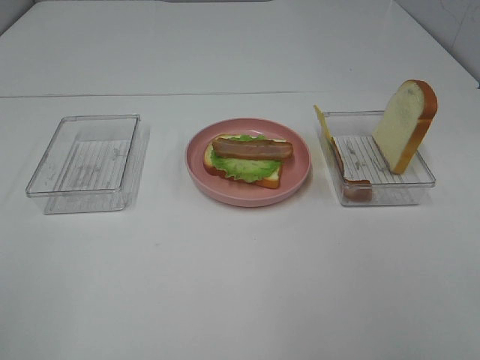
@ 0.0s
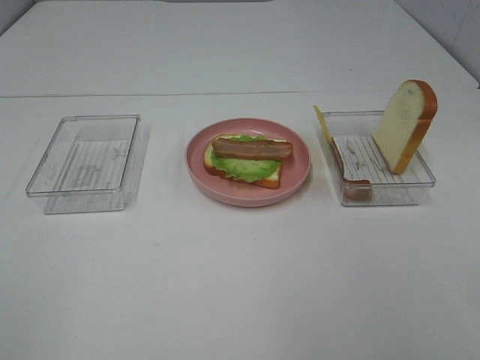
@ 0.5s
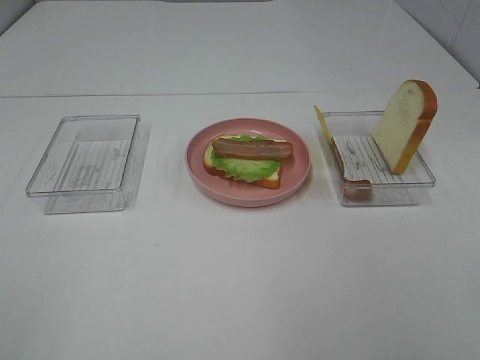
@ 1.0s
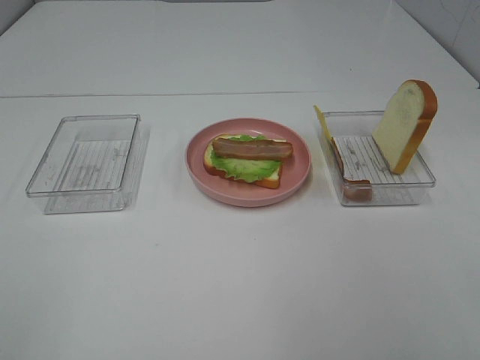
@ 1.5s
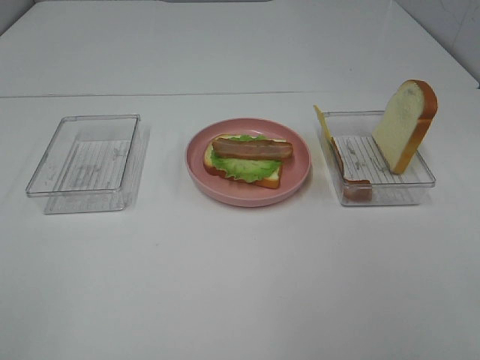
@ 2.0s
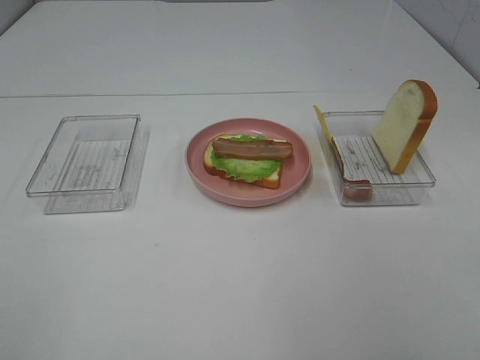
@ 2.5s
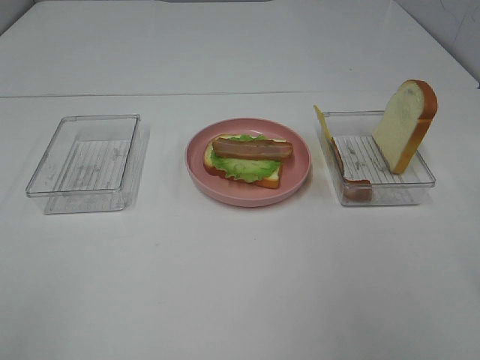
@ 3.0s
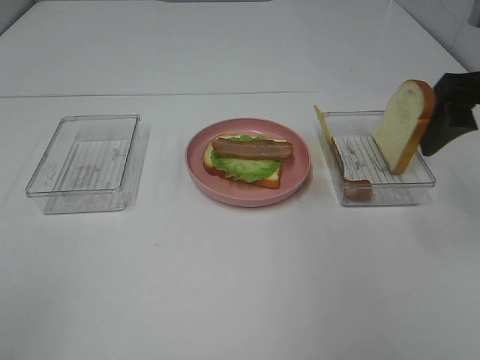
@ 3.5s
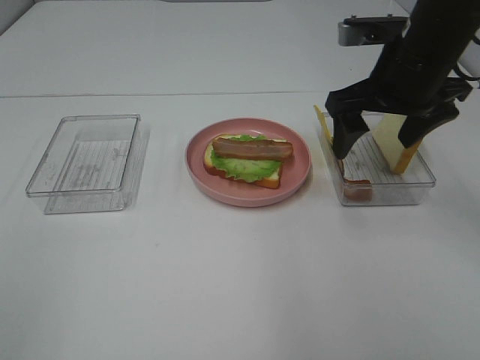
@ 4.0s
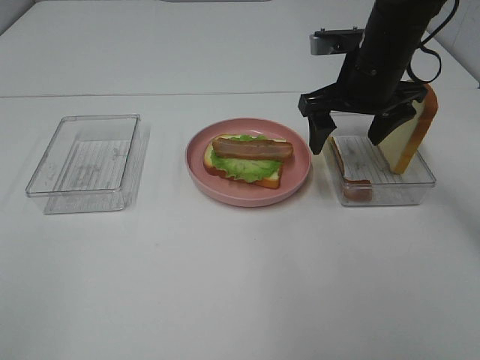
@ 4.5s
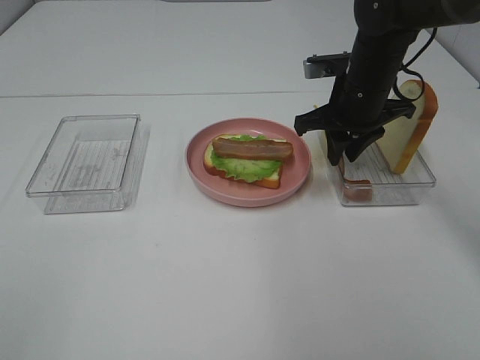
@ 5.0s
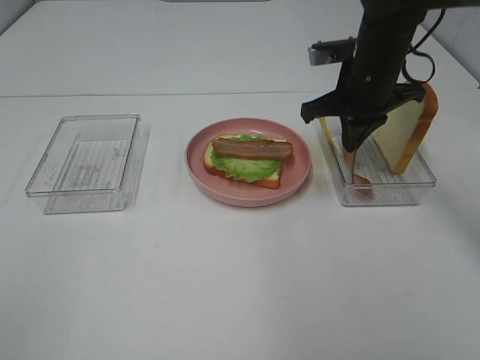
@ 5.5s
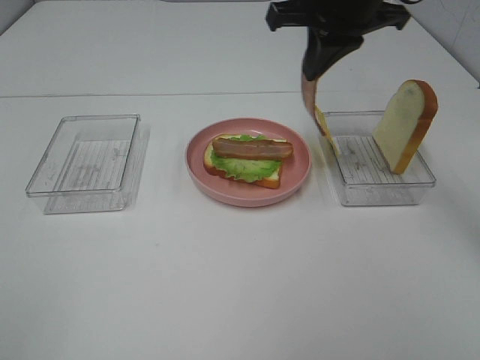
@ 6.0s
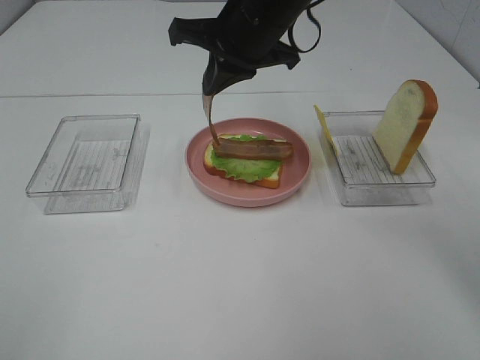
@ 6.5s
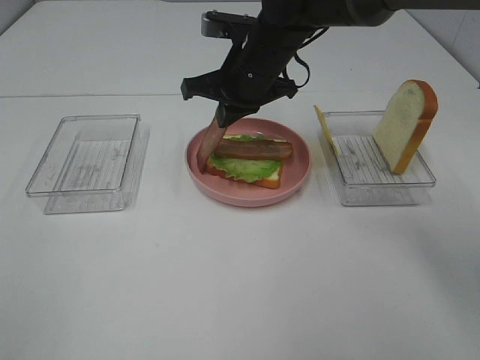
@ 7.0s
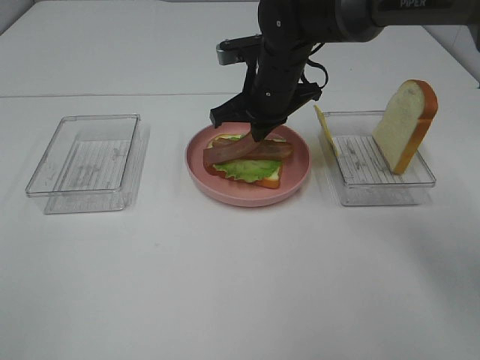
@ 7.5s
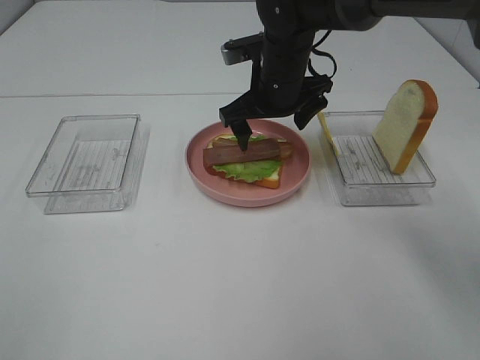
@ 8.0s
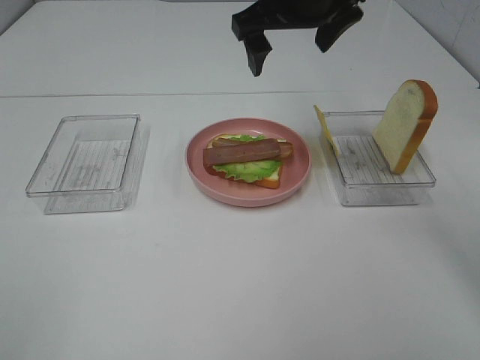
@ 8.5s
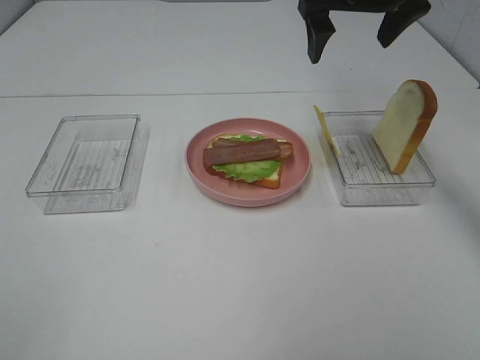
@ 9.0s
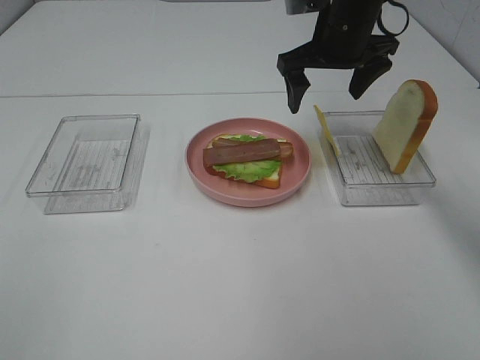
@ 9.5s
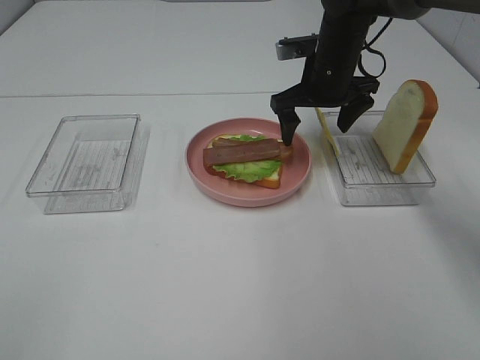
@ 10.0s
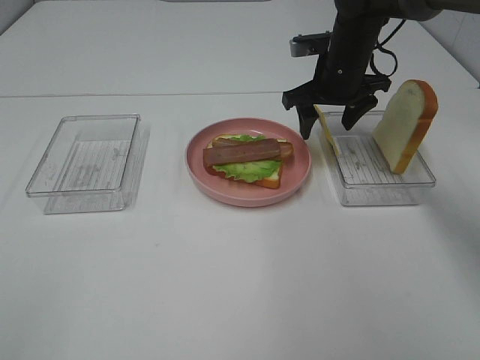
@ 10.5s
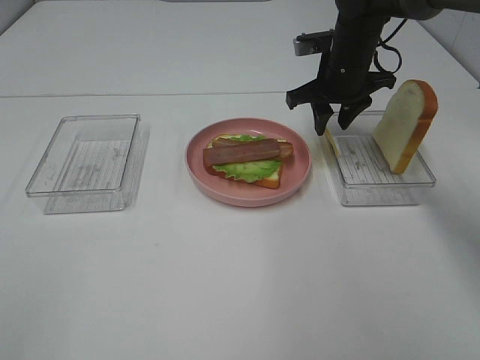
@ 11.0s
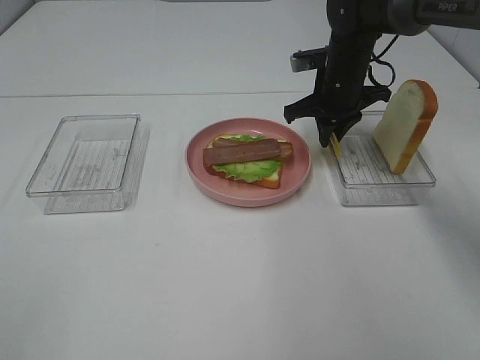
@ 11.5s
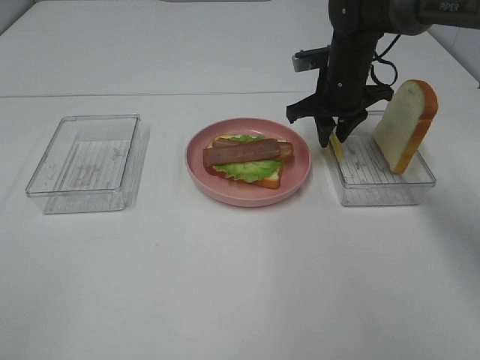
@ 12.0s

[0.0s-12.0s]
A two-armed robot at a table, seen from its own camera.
Task of the whole recording: Make sandwiches.
Step, 0.0s to 5.0s: Right hand:grab the bacon.
Step, 5.5s to 7.5s: Right hand:place bacon on bacon.
2.0s to 4.0s: The right gripper moves forward, about 35 cm.
4.0s to 6.0s: The right gripper shifts some 10 cm to the left and upward, and closes up.
6.0s to 8.0s: The right gripper is displaced downward and to the left by some 15 cm, and opens up.
8.0s to 10.0s: The right gripper is displaced to the right by roughly 10 cm, and travels upward and back again, some 10 cm each way.
10.0s to 12.0s: The right gripper closes up.

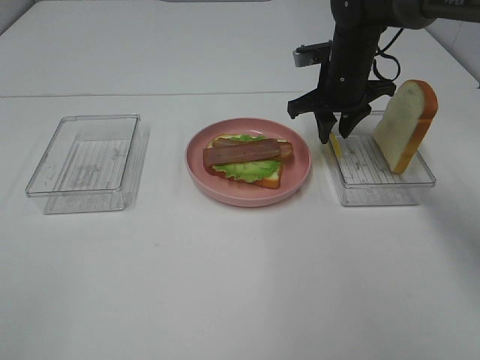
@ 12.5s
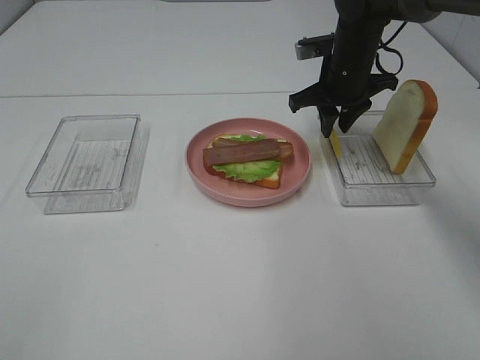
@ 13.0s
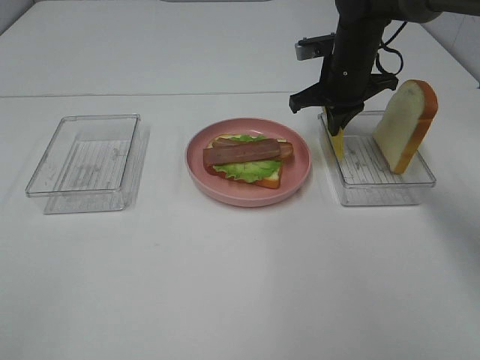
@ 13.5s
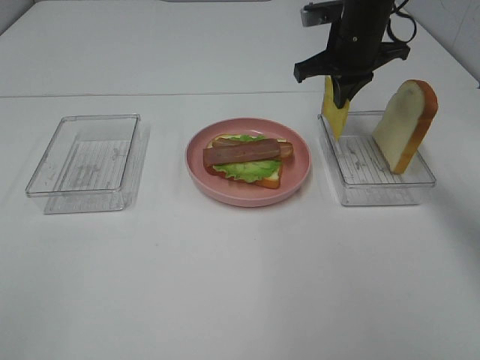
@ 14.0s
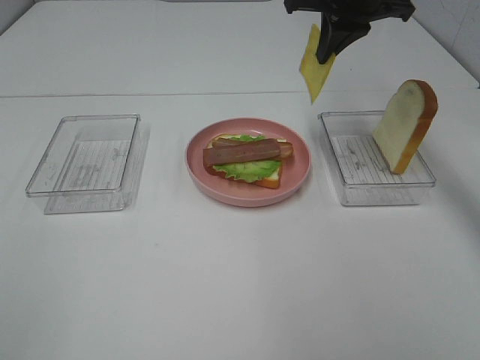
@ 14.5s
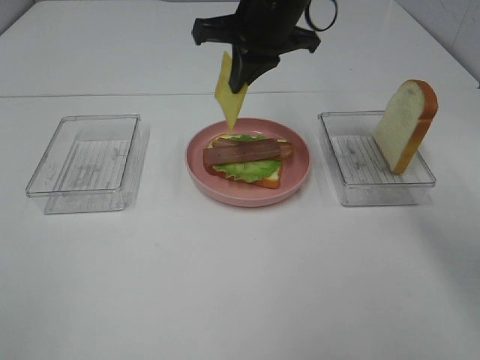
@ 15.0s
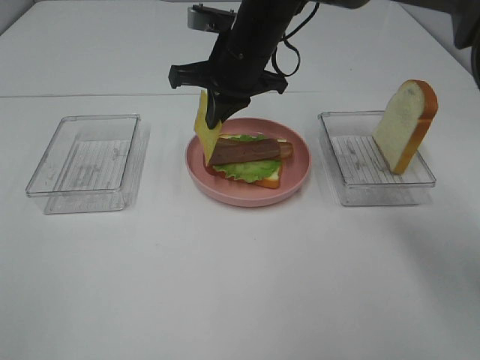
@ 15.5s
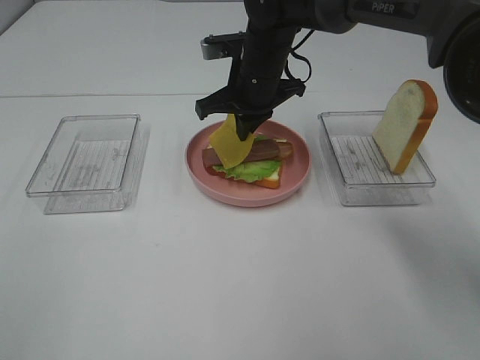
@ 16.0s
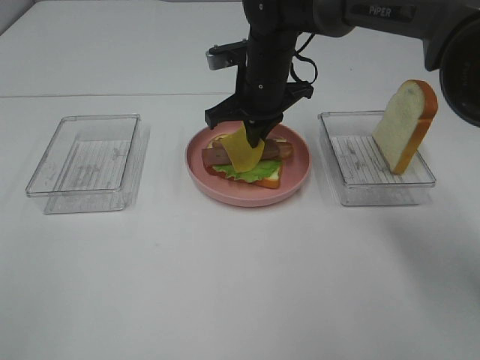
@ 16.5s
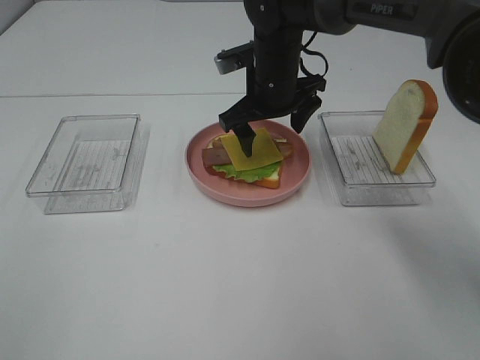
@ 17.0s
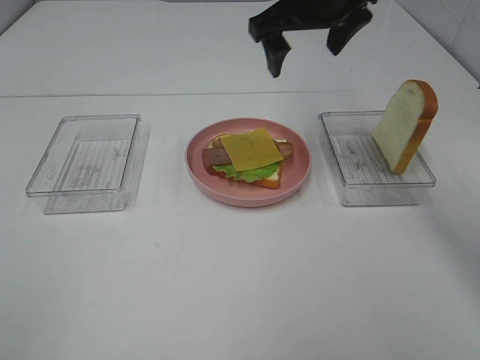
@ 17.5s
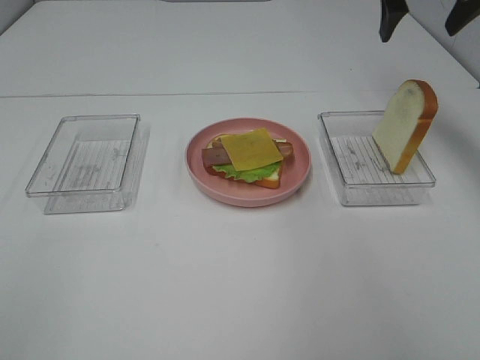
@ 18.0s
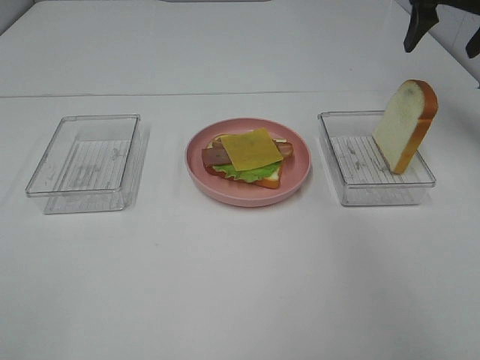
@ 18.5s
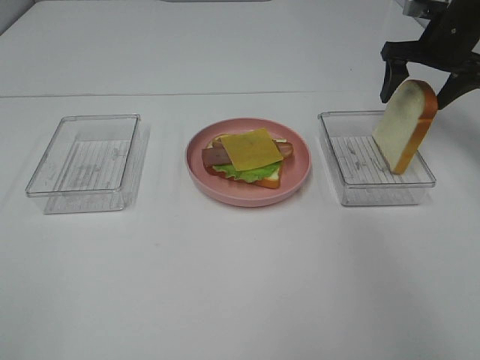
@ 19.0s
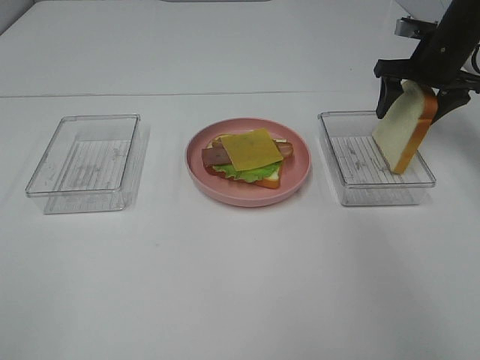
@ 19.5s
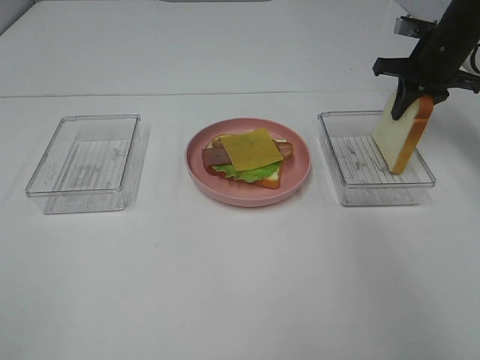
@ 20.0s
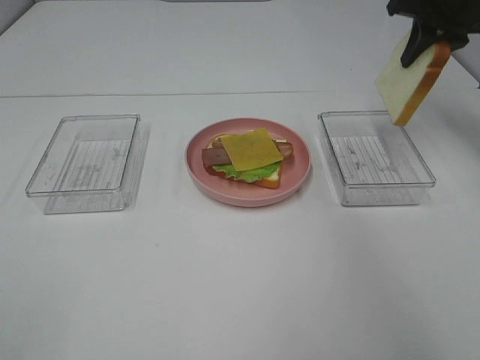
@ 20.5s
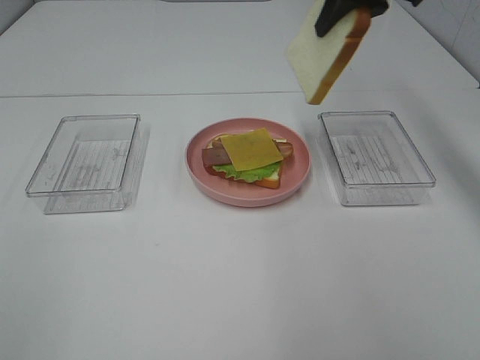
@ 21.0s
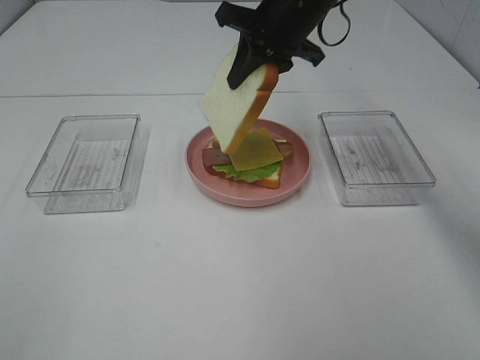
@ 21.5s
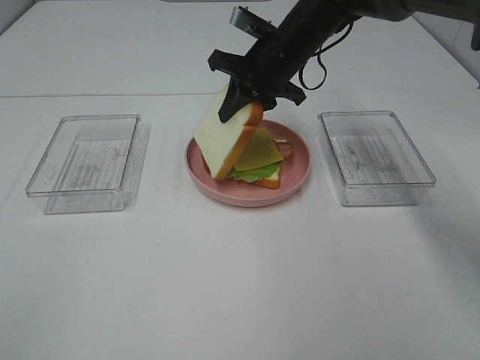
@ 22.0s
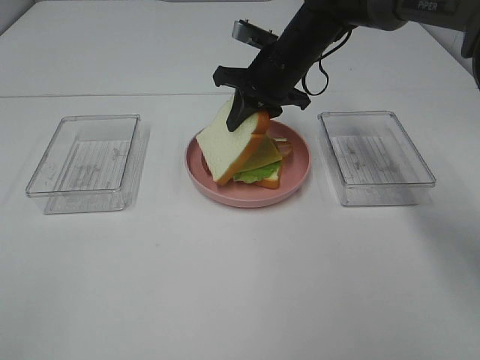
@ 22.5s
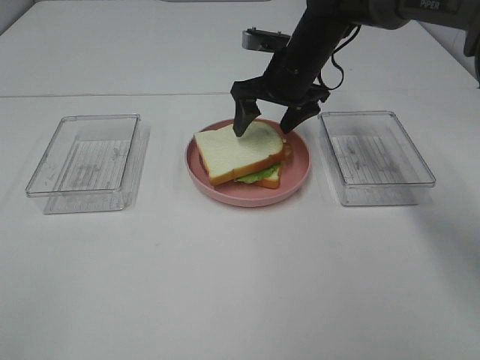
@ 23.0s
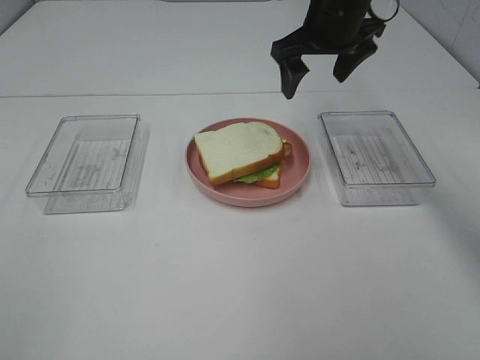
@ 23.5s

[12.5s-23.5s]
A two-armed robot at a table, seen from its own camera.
Task of the whole recording: Make sandwiches.
Step, 14.0s to 17.0s: Right hand:place the cheese slice on top of the bacon.
Step, 17.5s to 20.0s: Right hand:grab the bread slice.
Step, 20.5s to 23.0s: Right hand:place the bread slice on the cheese slice.
12.5s to 14.5s: The right gripper goes approximately 15 cm upward, and closes its fingers.
14.5s to 16.0s: The right gripper travels downward and to the left by about 15 cm.
16.0s to 18.0s: The right gripper is displaced to the right and upward by roughly 25 cm, and opens up.
18.0s to 20.0s: The right gripper heads downward, covering approximately 15 cm, and closes its fingers.
20.0s to 21.5s: The right gripper heads to the left, covering roughly 20 cm.
21.5s to 23.5s: The right gripper moves some 10 cm downward and comes back, and opens up.

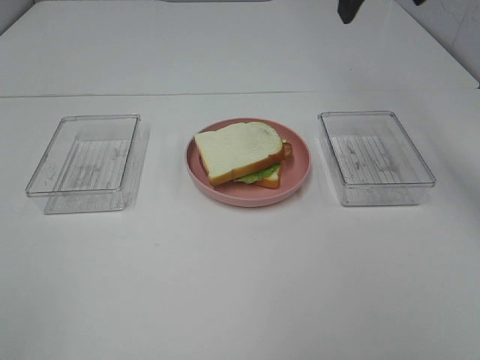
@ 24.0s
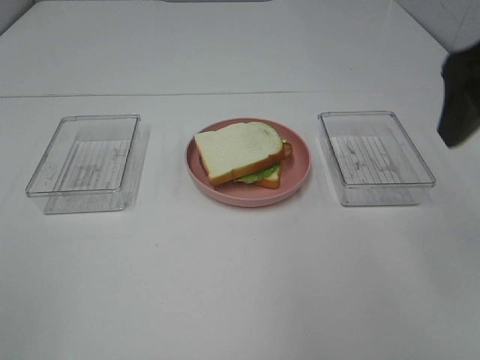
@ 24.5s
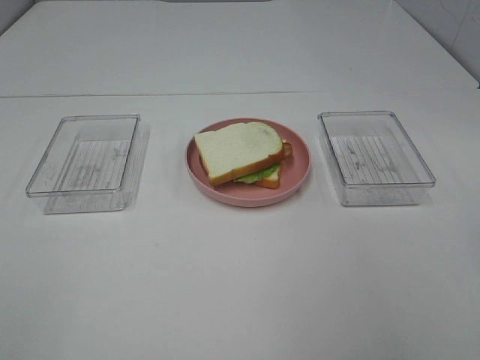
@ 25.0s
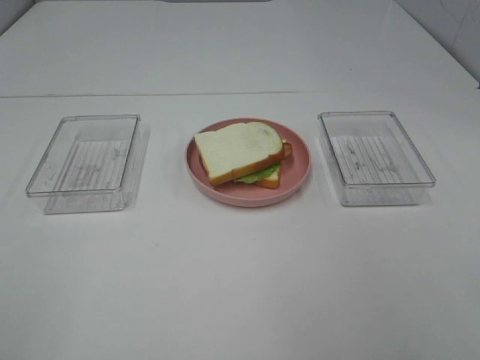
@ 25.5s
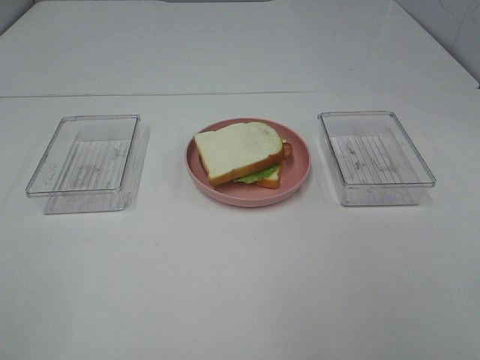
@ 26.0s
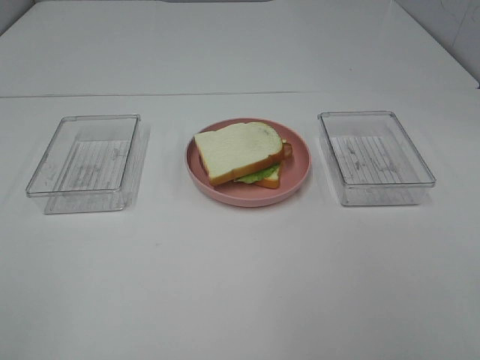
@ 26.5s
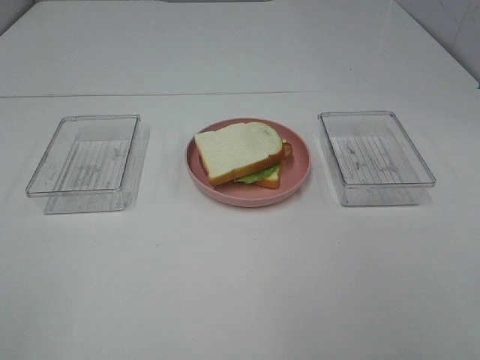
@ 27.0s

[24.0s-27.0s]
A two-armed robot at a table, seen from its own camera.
Task of the whole recording: Make sandwiches.
24.0s to 25.5s: The right gripper goes some 35 cm backward.
